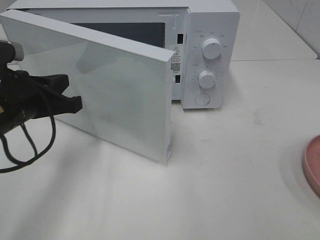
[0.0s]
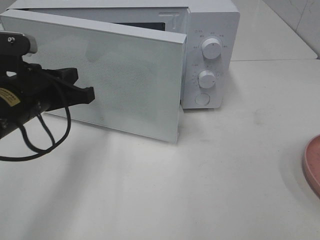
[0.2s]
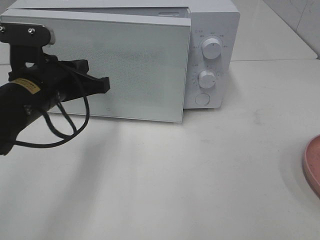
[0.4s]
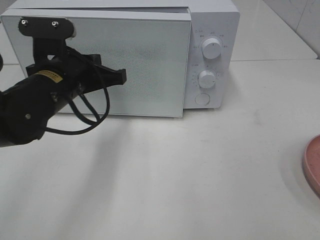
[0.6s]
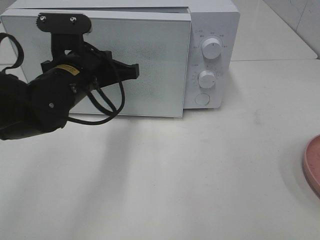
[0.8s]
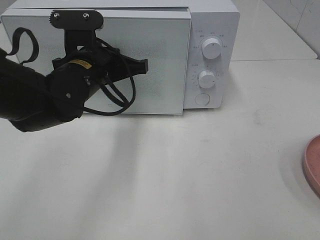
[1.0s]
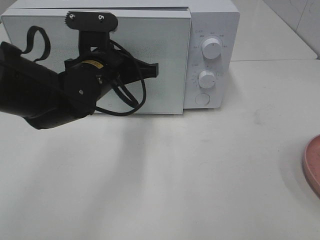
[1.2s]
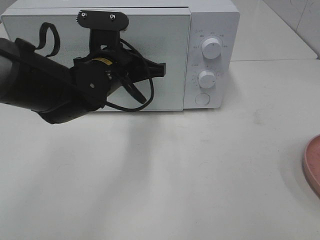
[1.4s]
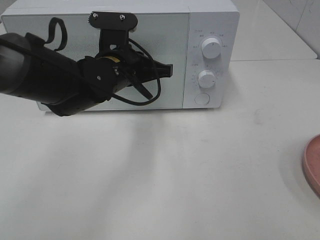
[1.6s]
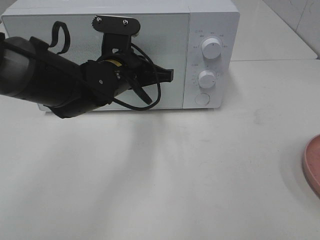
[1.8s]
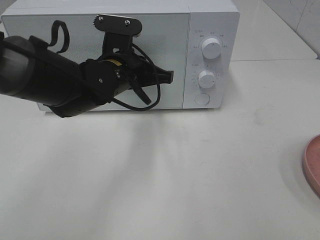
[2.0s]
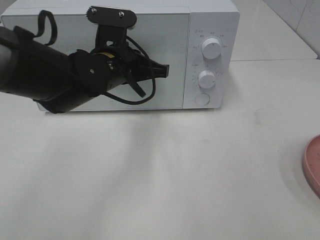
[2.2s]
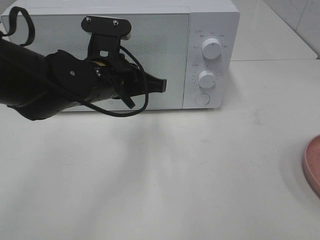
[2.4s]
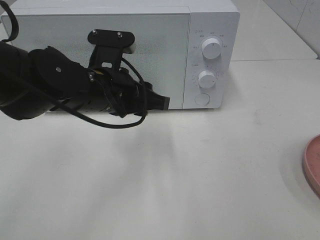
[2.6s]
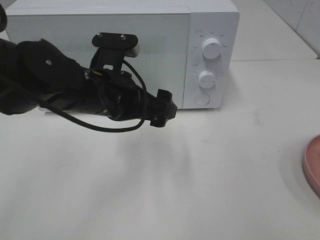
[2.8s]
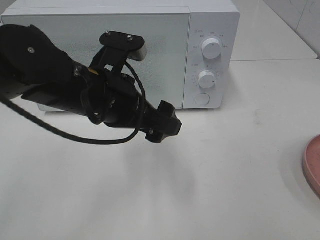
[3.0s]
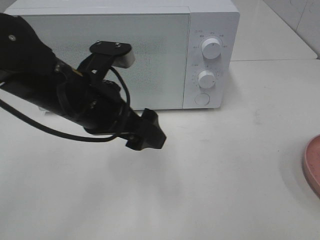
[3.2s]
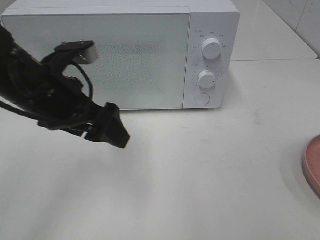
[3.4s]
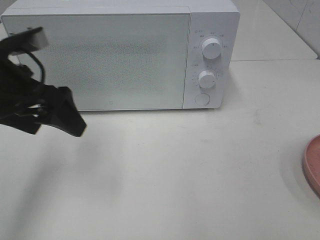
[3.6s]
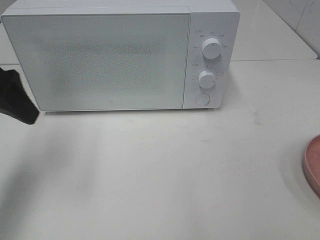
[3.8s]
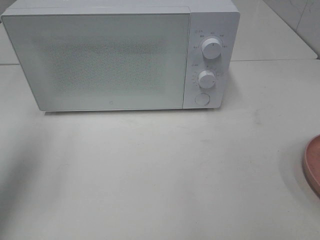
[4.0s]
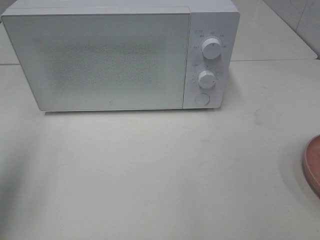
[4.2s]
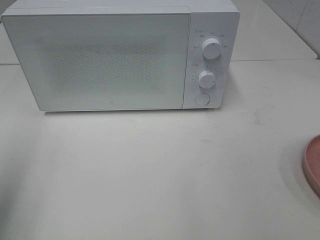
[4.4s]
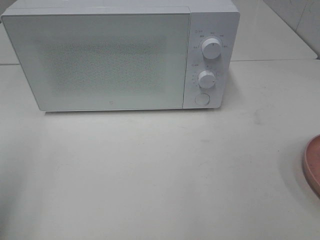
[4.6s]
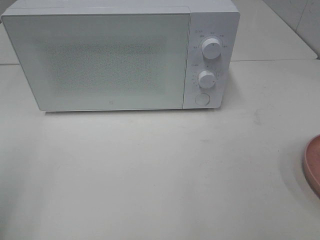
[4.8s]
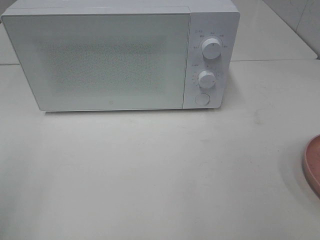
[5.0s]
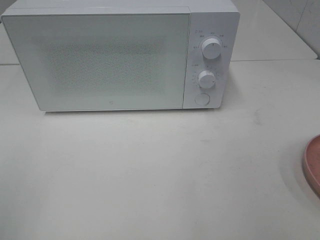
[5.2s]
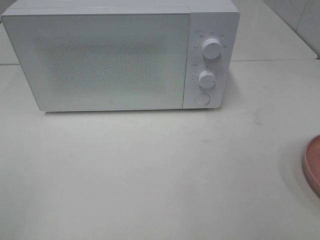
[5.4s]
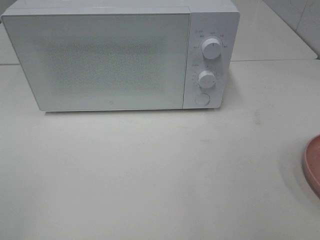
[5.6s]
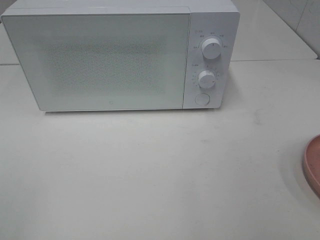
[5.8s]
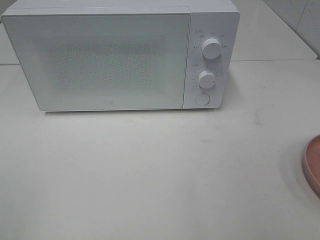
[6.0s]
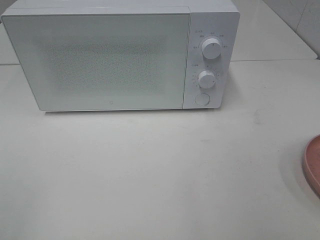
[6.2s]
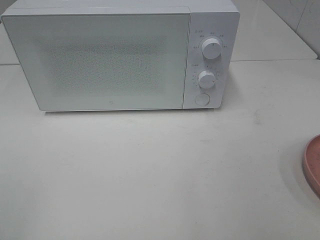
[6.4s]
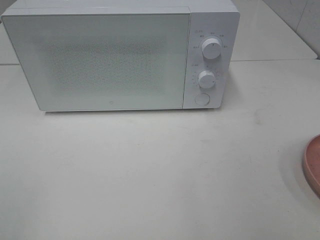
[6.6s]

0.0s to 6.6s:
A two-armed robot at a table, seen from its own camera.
Task of the whole recording: Heat the burger.
Step, 0.0s to 2.4s: Left hand: close the microwave door.
0.0s to 1.6s: The left gripper goes approximately 15 cm to the right and forward.
1.6s to 3.2s: The left gripper goes roughly 10 cm backward, and opens up.
3.2s to 5.0s: The left gripper shifts about 30 cm to the left and backward.

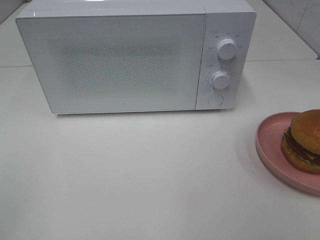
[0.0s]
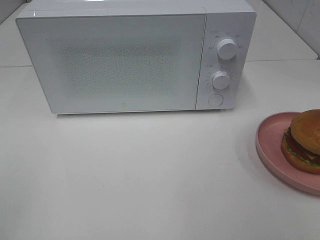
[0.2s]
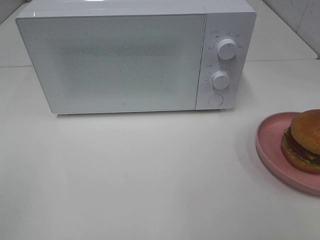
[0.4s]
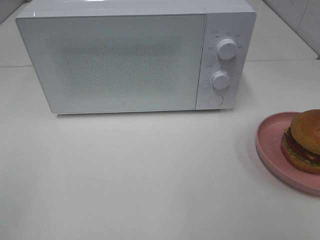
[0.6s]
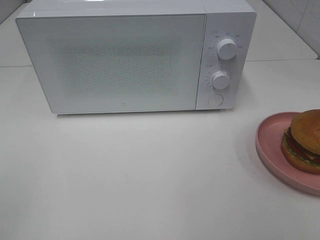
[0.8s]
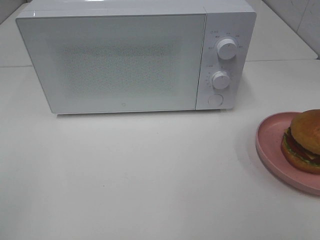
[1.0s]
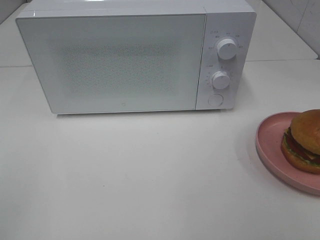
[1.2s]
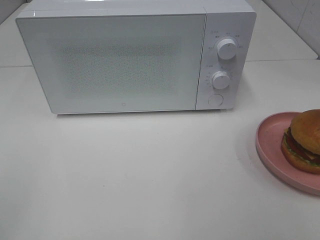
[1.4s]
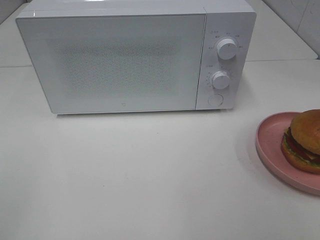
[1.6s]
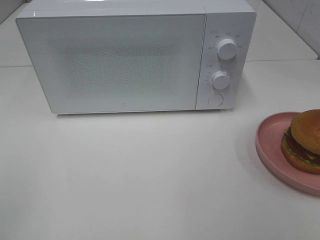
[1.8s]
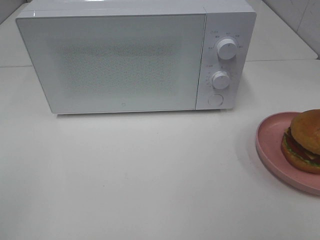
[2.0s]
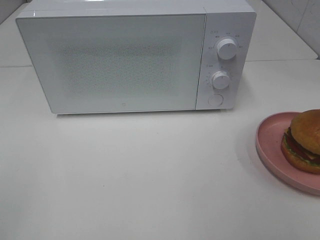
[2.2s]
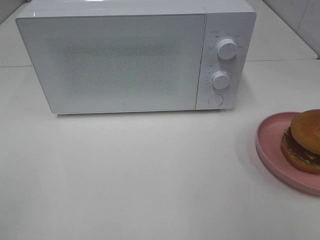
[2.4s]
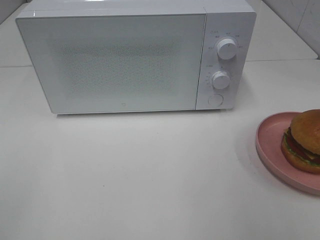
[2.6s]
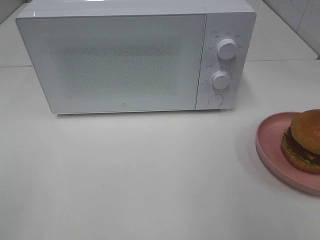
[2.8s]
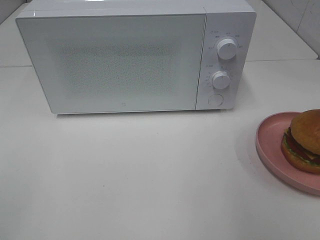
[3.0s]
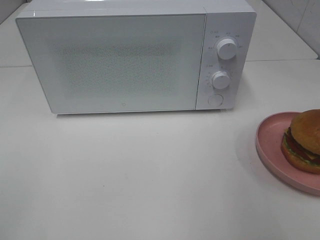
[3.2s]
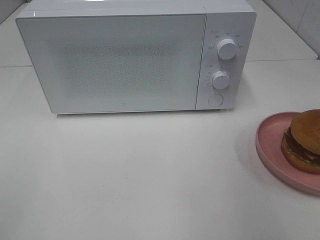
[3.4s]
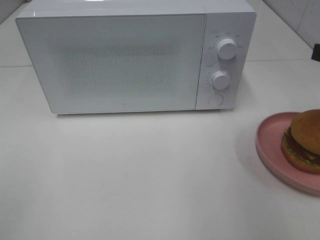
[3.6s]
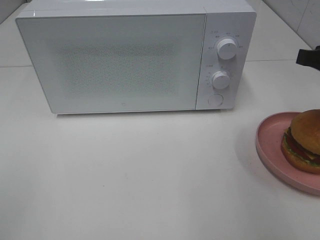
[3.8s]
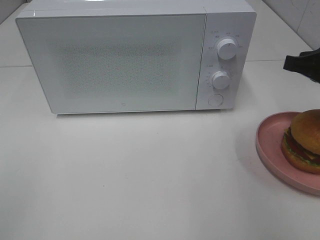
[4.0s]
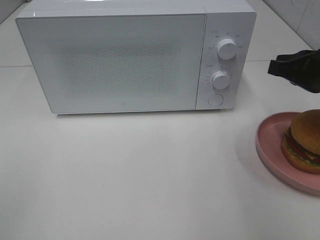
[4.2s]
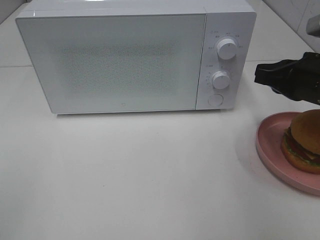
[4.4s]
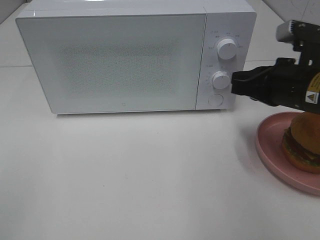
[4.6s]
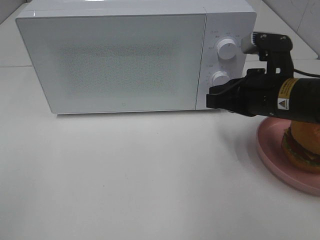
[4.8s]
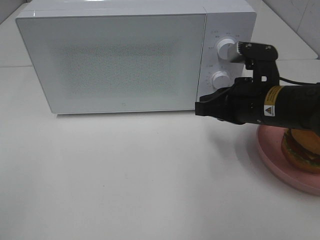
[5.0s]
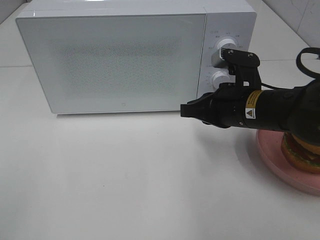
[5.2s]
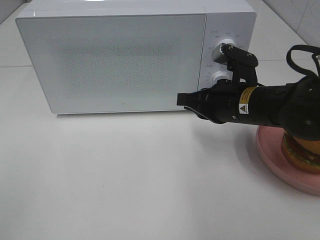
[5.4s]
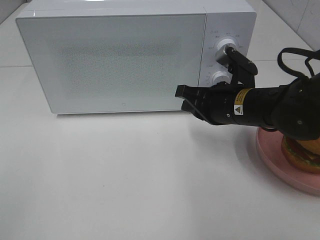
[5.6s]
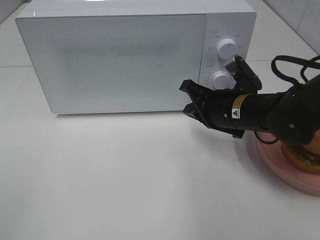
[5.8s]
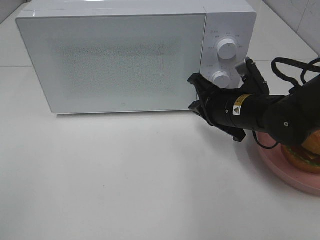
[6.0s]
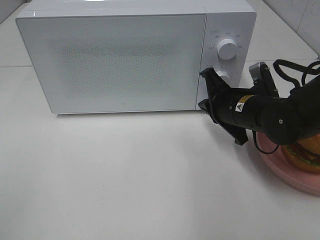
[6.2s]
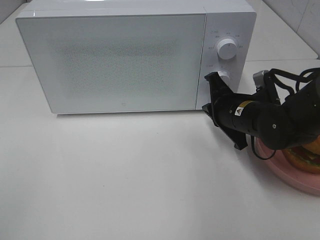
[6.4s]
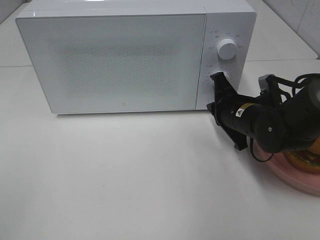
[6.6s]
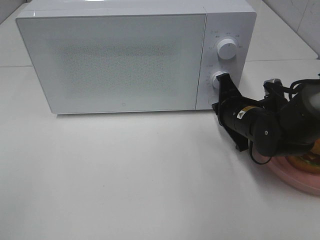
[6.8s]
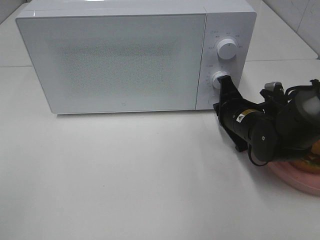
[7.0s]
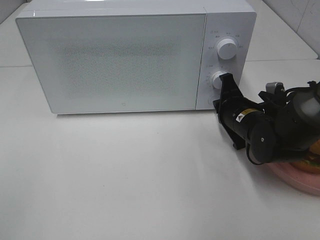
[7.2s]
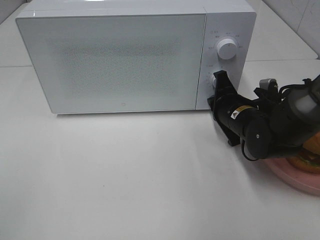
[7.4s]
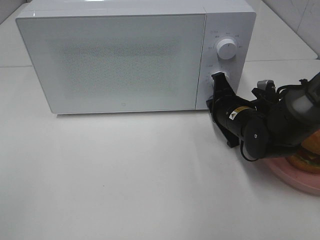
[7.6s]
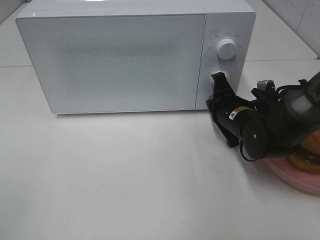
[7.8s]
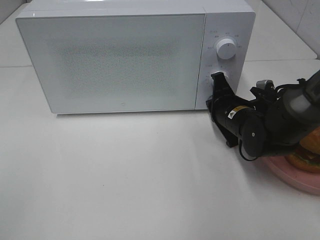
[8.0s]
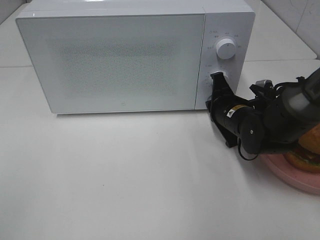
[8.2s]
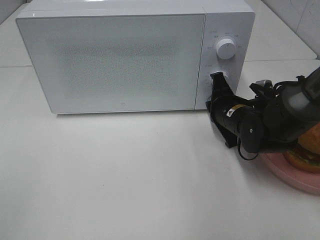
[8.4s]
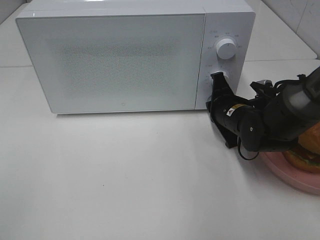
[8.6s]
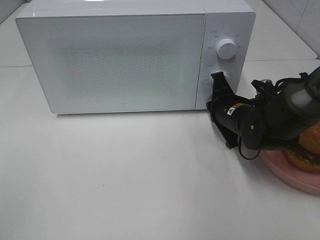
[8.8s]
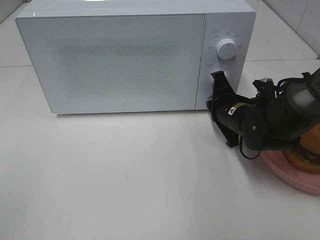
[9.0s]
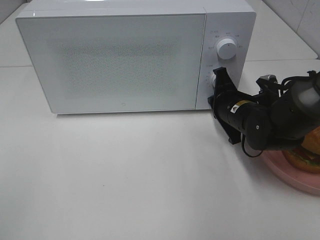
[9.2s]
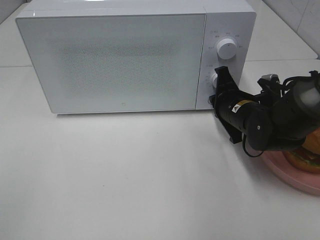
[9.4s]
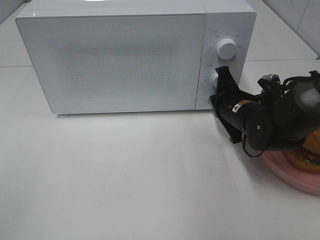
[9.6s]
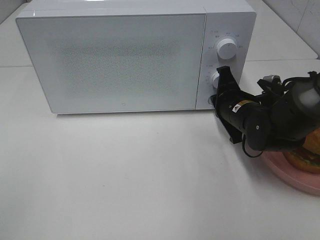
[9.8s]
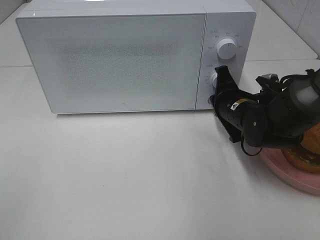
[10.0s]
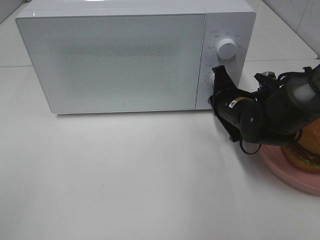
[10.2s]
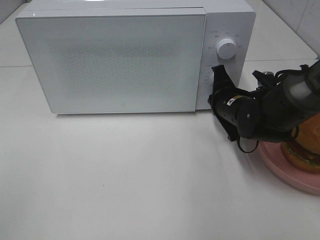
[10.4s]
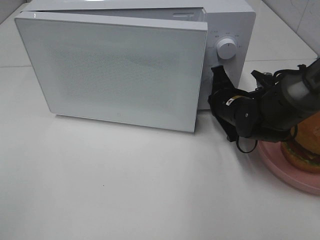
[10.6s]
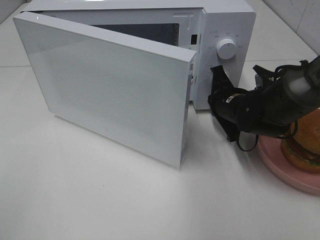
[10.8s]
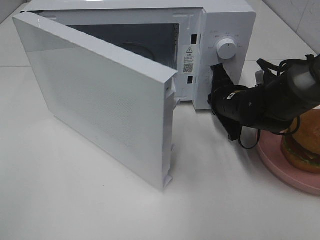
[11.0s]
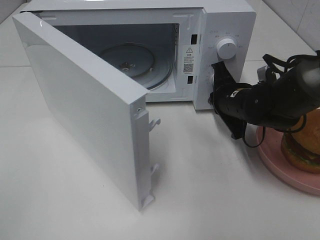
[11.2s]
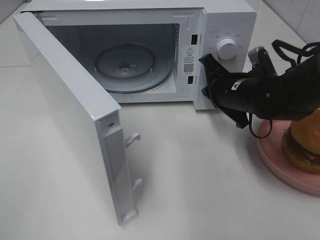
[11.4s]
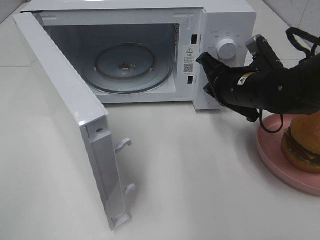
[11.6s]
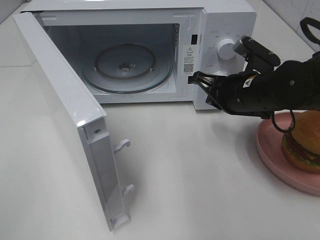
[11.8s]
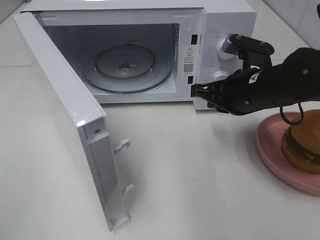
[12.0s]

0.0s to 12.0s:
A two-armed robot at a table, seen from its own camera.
Task of the whole recording: Heat the burger.
Step, 0.0s to 11.4s: Right hand: press the switch.
0.0s to 1.6s: Both grippers stay about where they are.
3.0s to 4.4s: The right gripper travels forward and downward by about 15 cm, and closes.
4.4s to 6.0s: The right gripper moves to the left and downward, approximately 10 cm.
6.0s to 7.6s: The right gripper moves roughly 5 cm.
7.6s to 9.0s: Both grippers stay put.
9.0s to 10.4s: The grippers make only small movements.
10.4s to 12.0s: The right gripper heads upward and backward, covering some 10 cm.

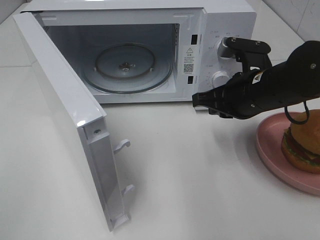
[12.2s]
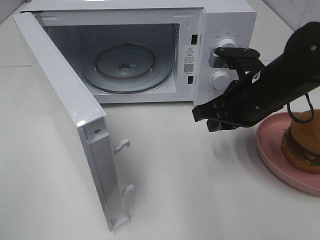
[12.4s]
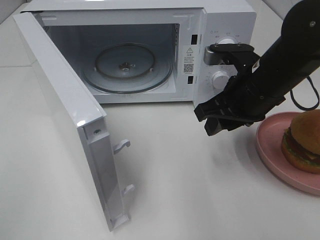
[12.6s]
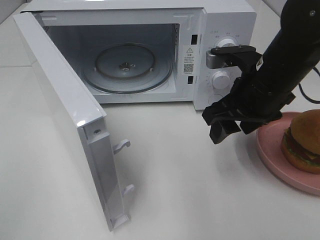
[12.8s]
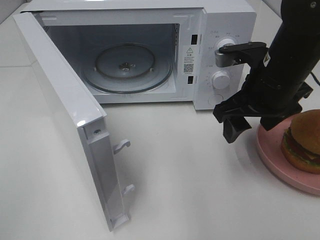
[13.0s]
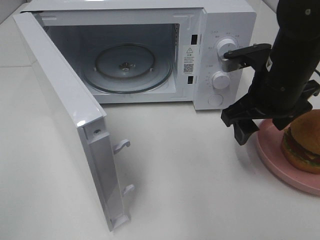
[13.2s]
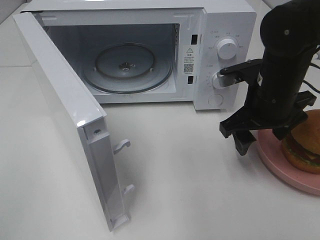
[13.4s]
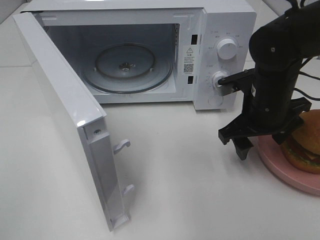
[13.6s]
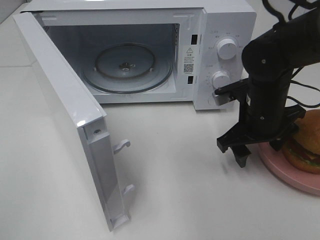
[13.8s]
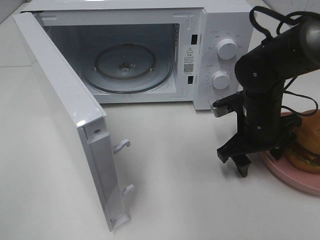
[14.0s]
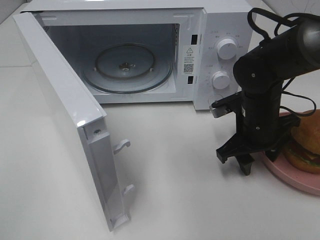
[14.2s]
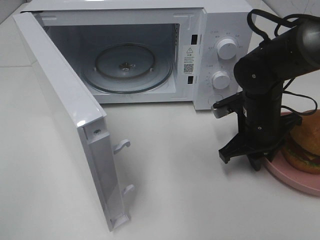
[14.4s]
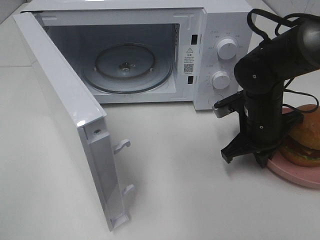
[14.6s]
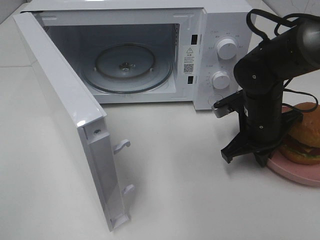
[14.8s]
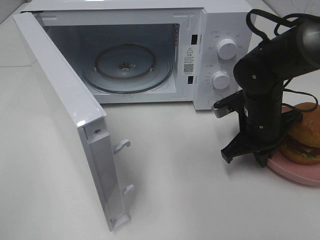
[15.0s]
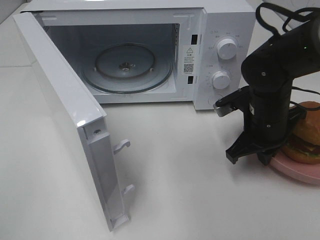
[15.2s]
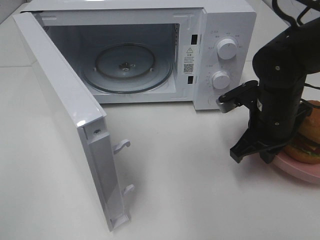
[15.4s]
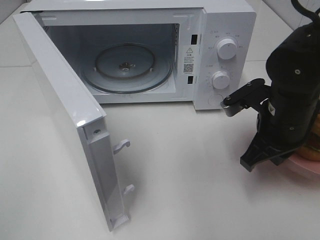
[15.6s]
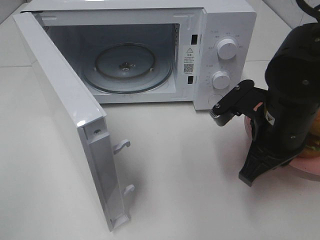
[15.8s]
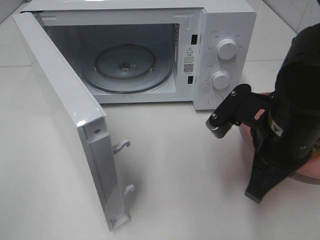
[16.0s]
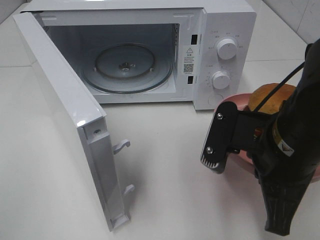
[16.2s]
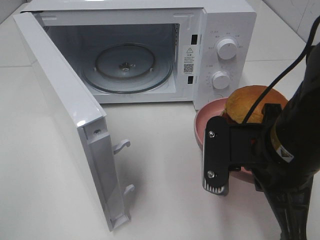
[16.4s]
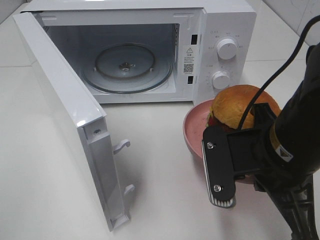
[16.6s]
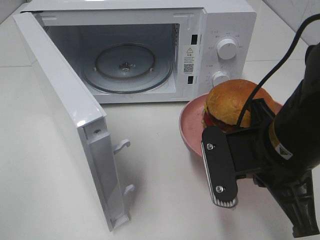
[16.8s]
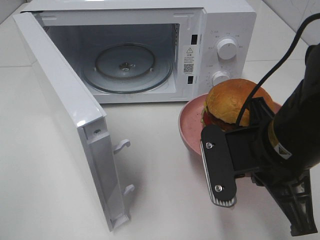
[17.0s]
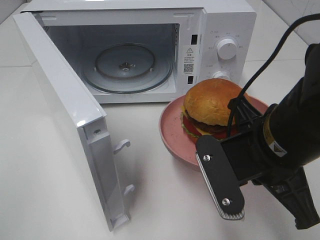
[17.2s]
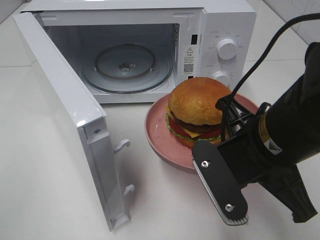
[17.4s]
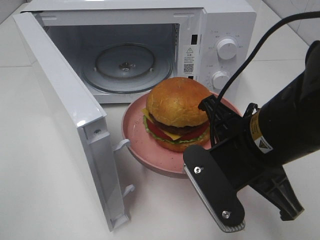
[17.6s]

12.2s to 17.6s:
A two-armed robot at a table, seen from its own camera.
Task of the whole recording: Heat the burger.
Step, 12.2s to 14.8s: Right hand: grab the plate with the hamburger.
12.2s to 13.6s: The right gripper opens.
13.6s to 15.0s: The right gripper closes its fingers.
15.0s to 16.2s: The right gripper travels backward and upward by some 15 cm.
